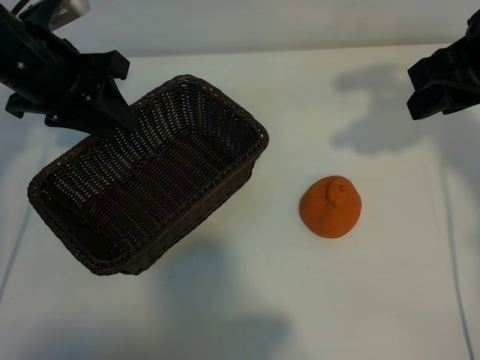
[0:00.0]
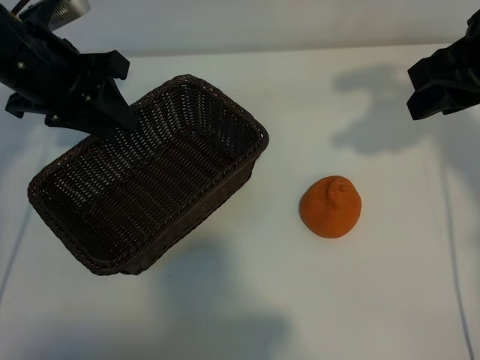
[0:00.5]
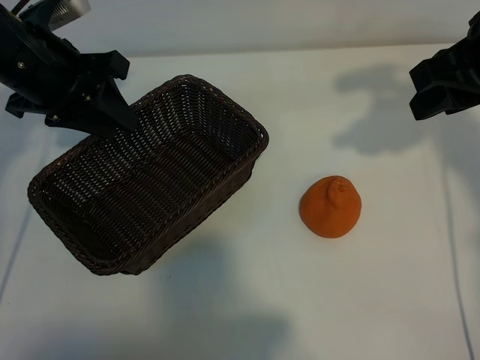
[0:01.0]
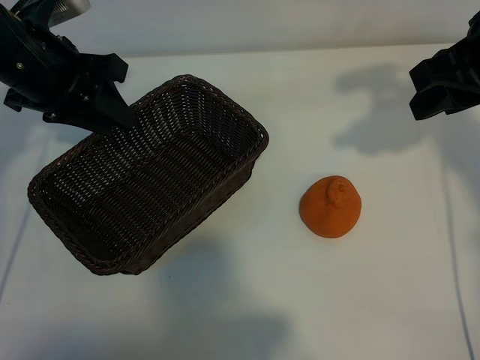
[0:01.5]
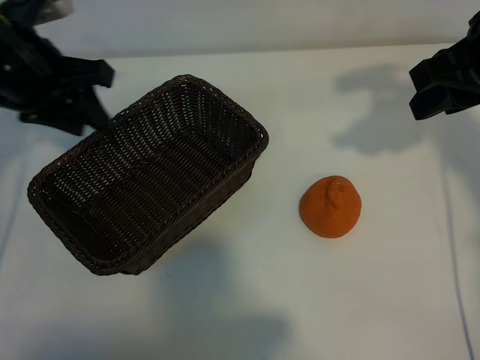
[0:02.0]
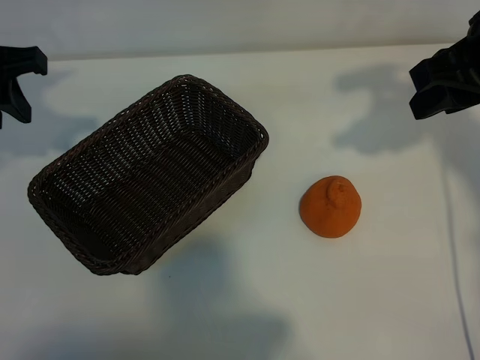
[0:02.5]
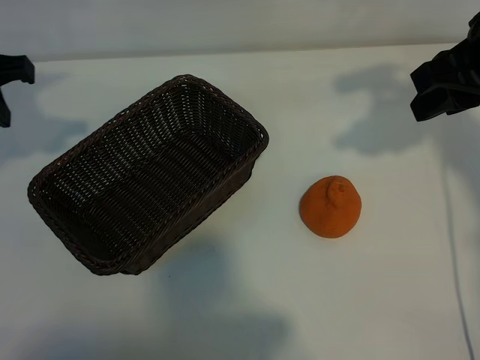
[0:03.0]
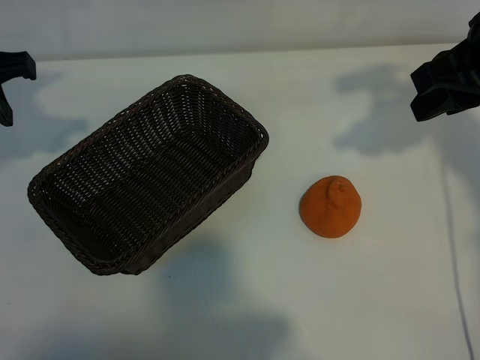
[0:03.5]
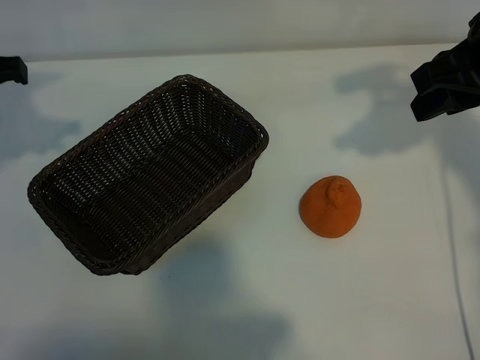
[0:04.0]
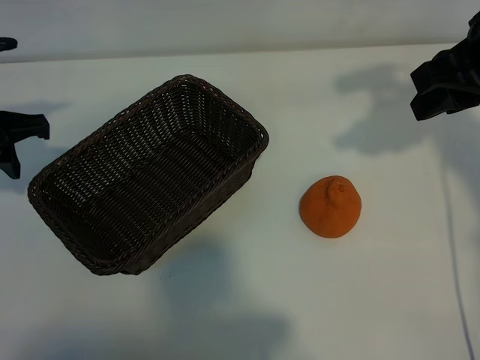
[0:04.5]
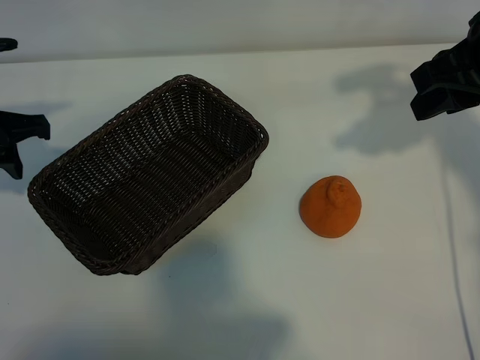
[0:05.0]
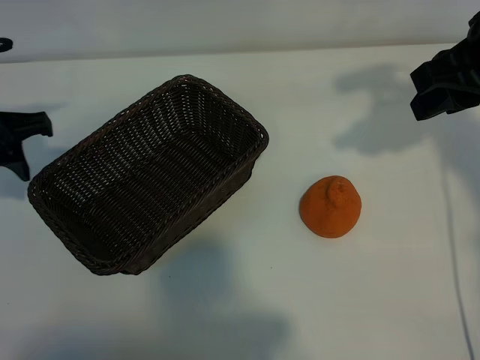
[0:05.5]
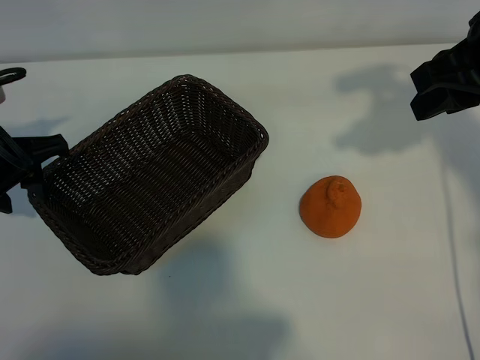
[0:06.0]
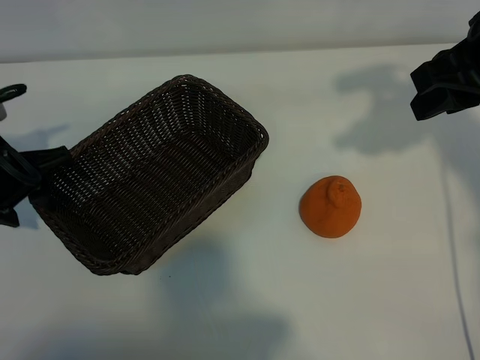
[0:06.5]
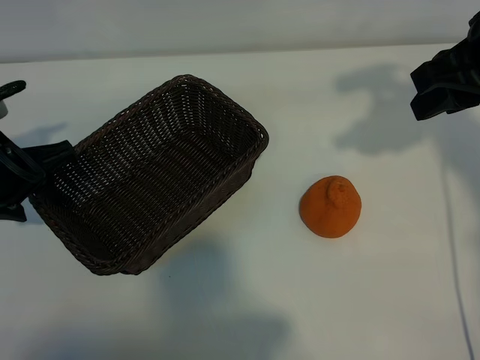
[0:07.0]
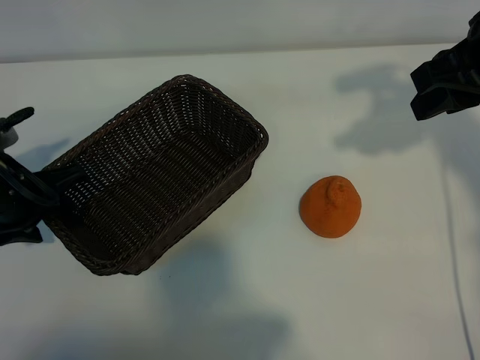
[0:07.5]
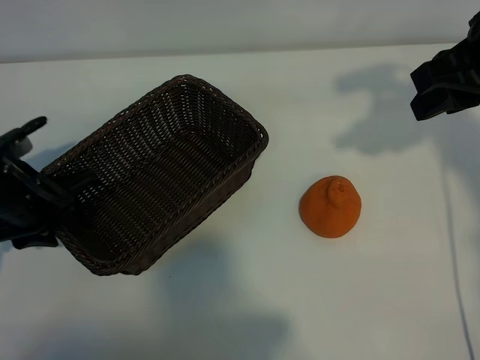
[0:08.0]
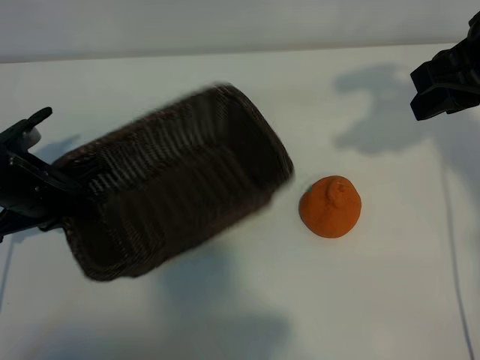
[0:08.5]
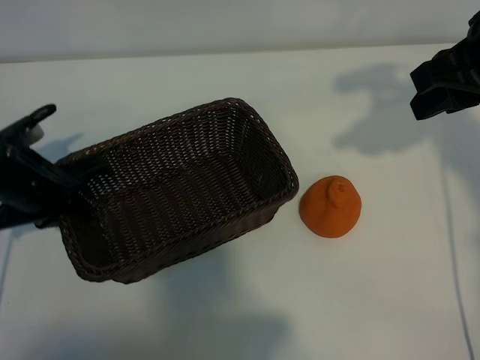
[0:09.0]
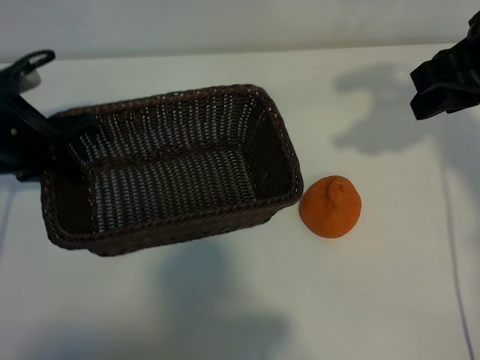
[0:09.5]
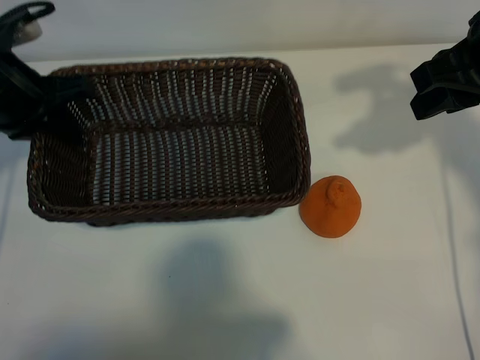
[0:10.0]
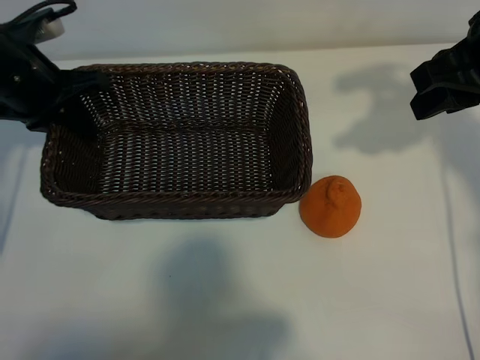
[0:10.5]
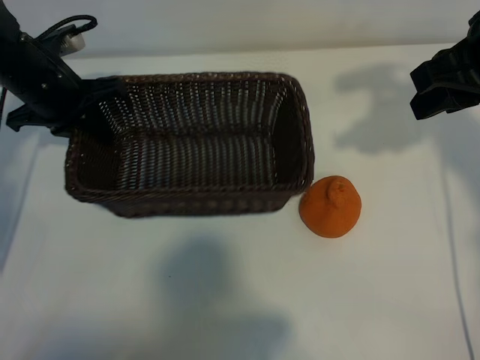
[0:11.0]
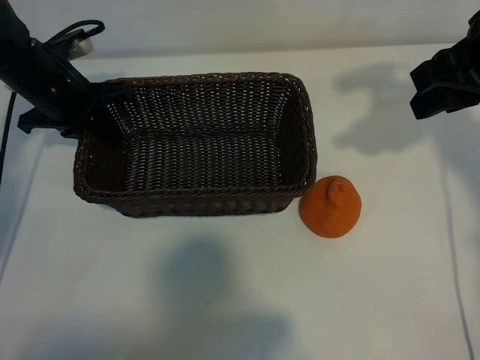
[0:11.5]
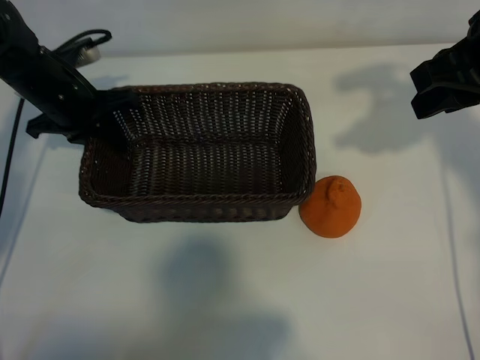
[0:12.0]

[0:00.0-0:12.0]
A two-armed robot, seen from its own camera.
Task of the whole recording: pick up the orange and put it into the basket.
Step, 0:01.0 to 0:08.5: Grasp the basket with left gripper.

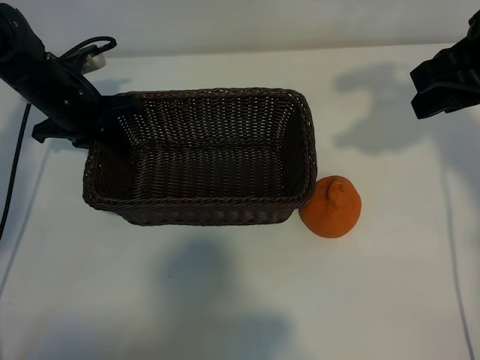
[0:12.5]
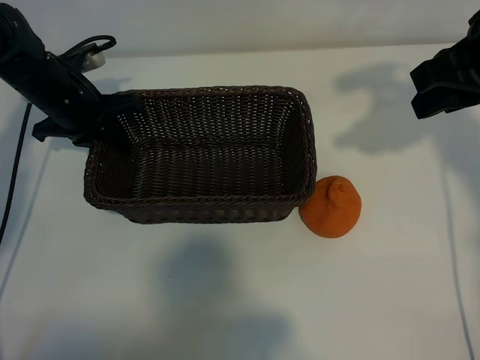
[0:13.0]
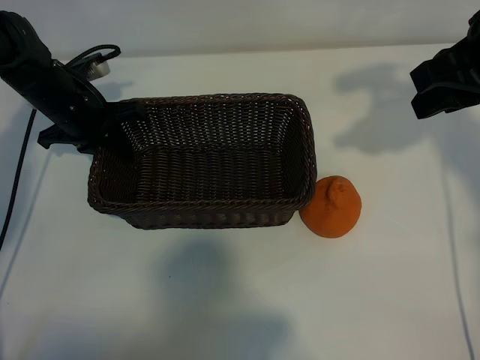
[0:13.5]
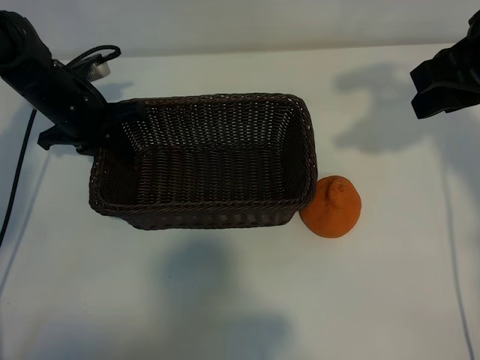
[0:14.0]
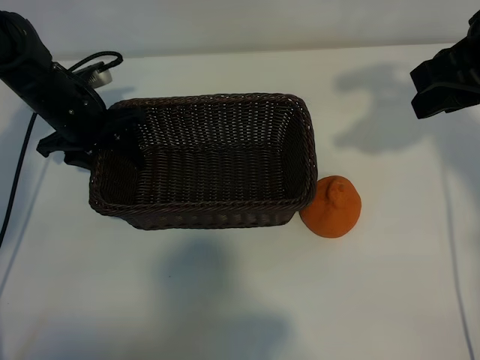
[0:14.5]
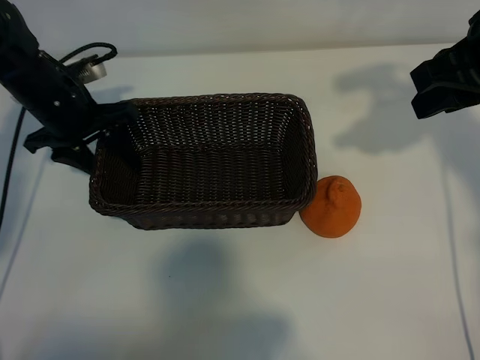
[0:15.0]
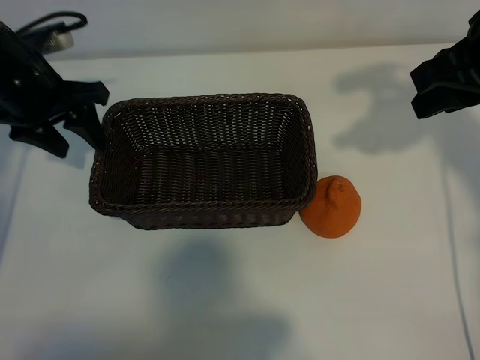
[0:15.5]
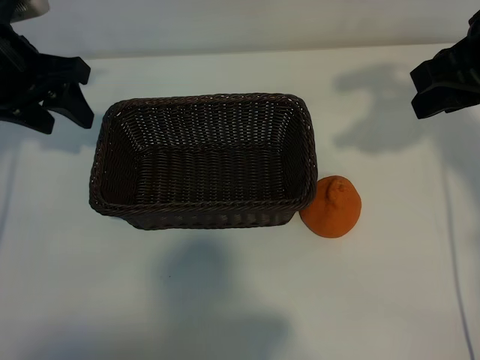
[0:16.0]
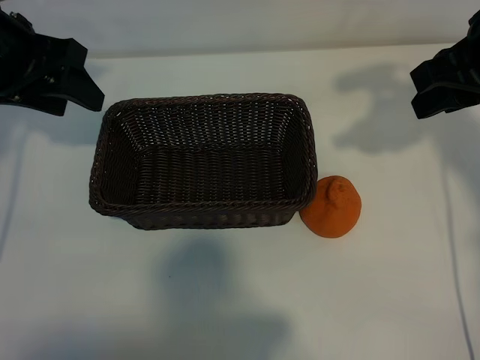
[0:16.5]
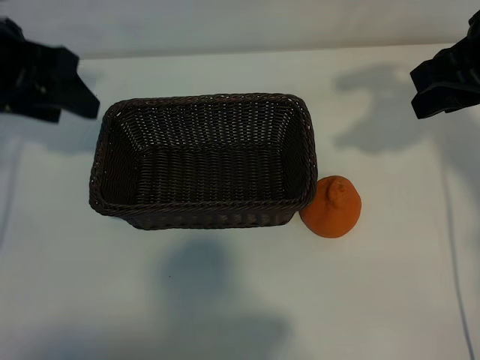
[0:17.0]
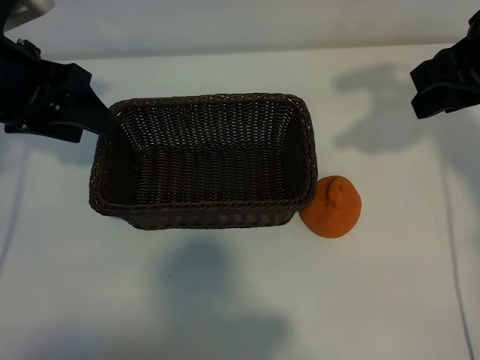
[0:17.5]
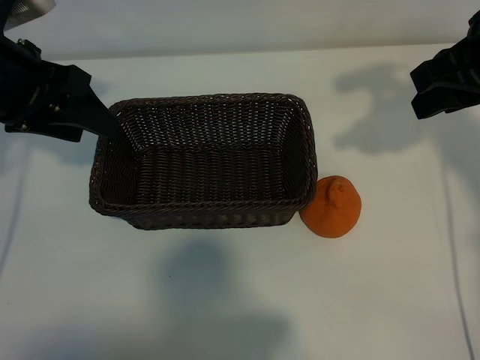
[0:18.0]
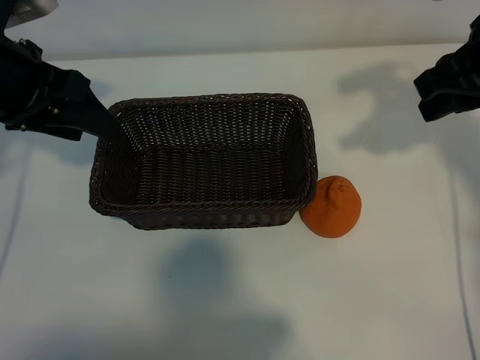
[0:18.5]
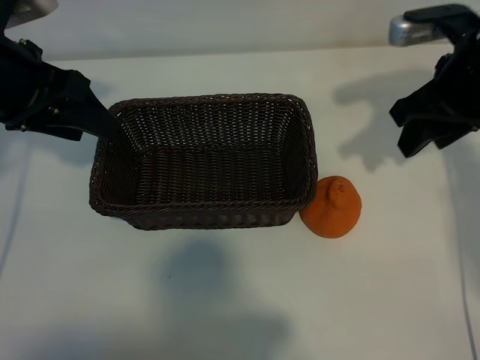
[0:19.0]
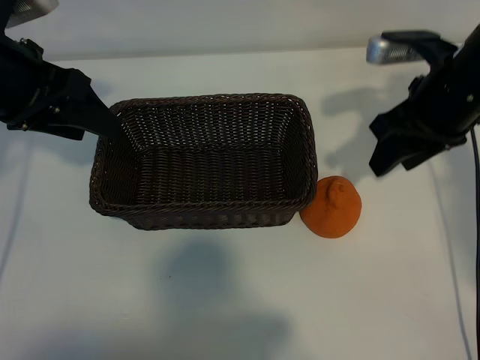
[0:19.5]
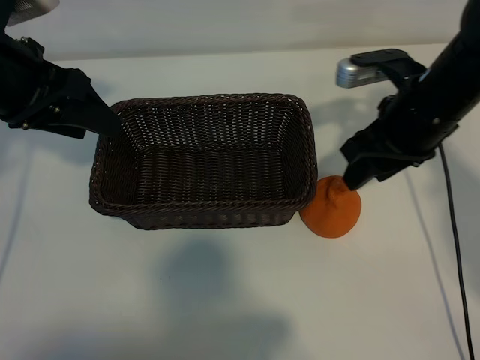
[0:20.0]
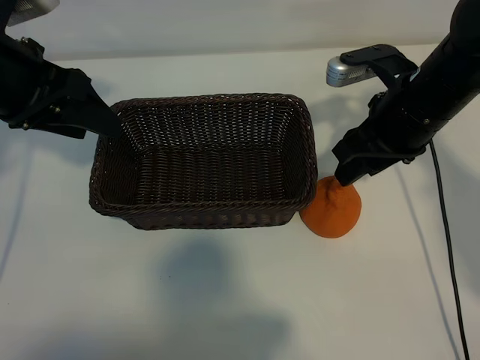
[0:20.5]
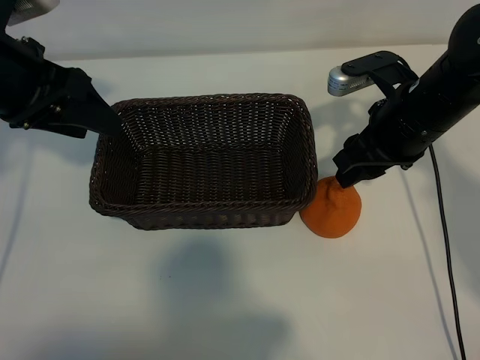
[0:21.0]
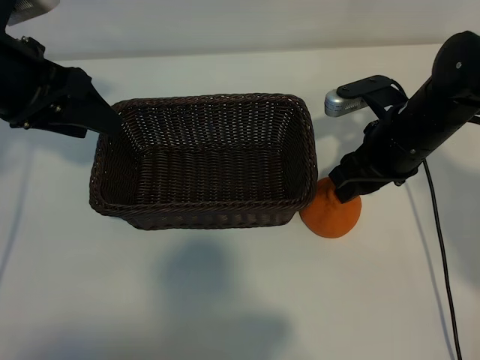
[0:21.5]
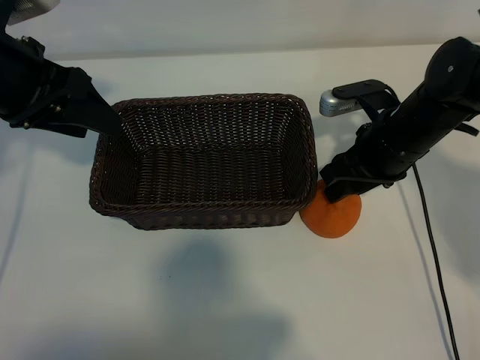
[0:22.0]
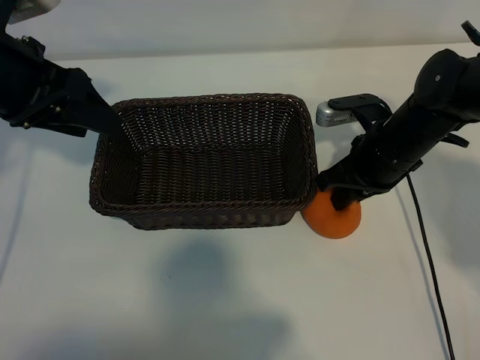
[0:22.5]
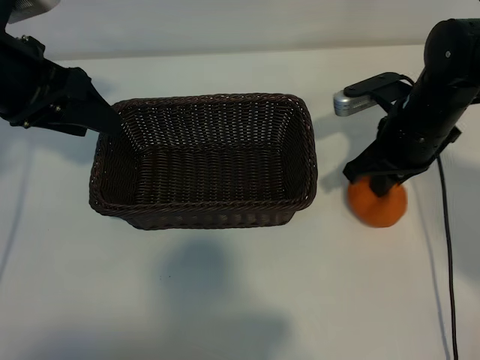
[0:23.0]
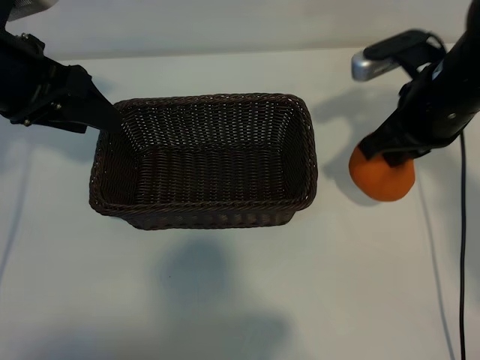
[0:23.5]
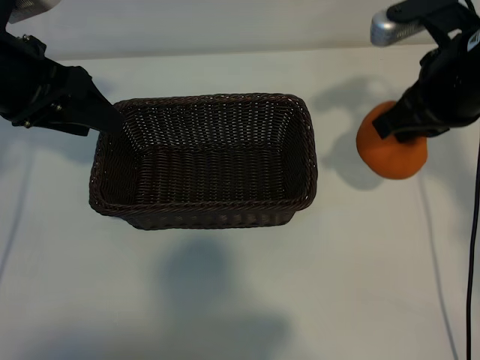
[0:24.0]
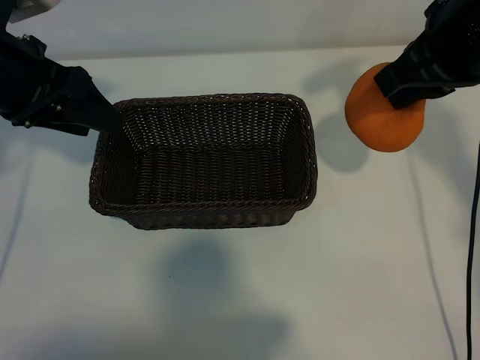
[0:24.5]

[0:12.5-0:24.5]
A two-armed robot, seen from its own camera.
Task of the whole recording: pick up the orange and put it into the basket.
Step, 0:14.5 to 0:22.5: Grasp the orange with right gripper.

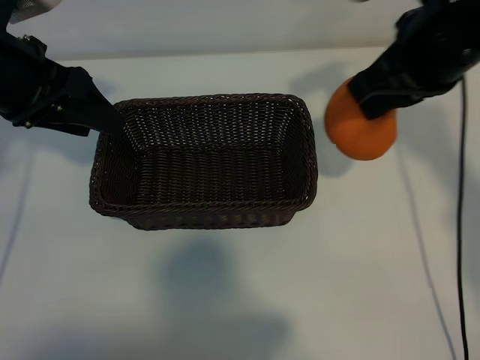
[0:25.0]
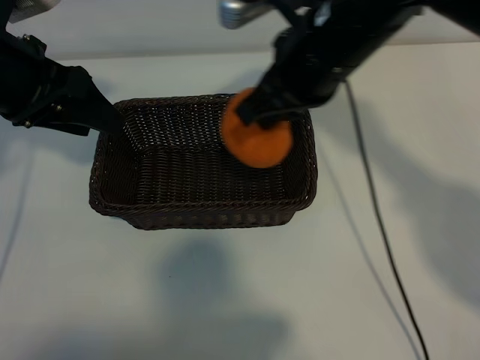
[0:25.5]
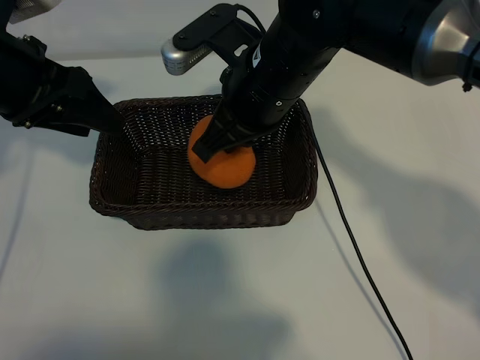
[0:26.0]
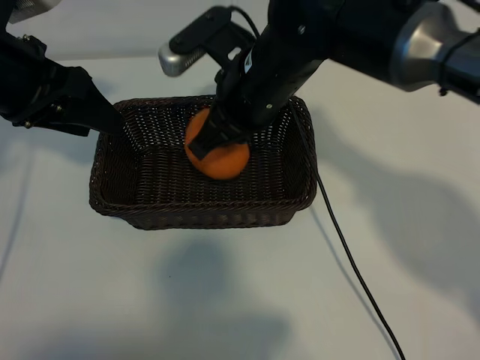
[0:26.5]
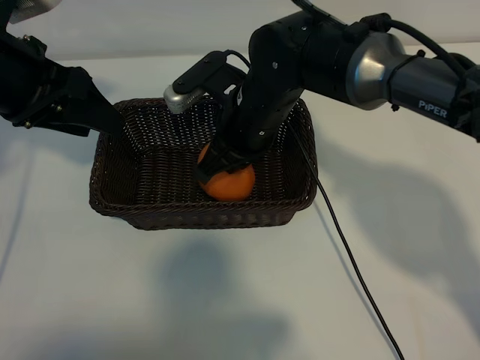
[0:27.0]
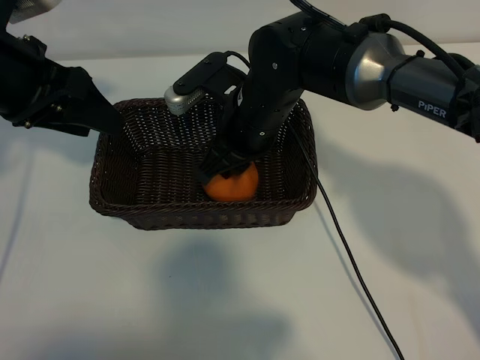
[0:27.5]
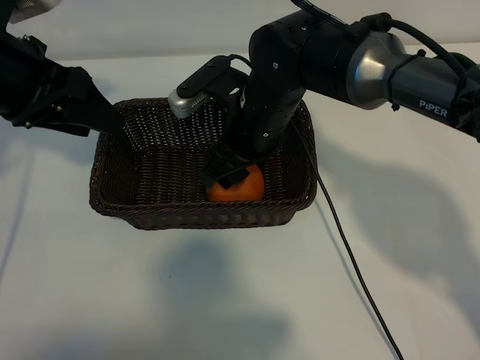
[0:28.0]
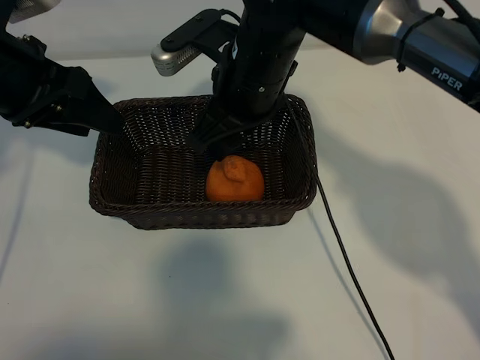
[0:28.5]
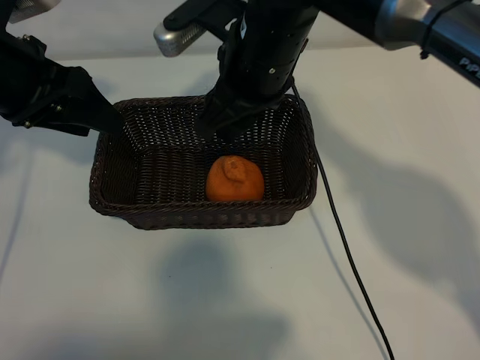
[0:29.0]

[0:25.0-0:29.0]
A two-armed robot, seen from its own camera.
Task of the whole recording: pick up the orange and put it into the basket.
Step, 0:25.0 to 0:27.5: Place the orange in the basket with right gripper.
